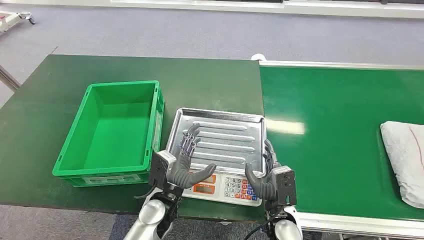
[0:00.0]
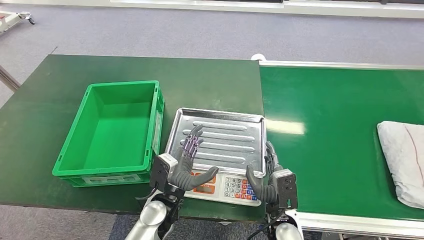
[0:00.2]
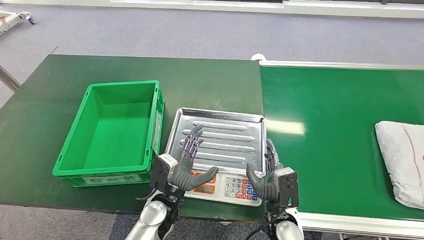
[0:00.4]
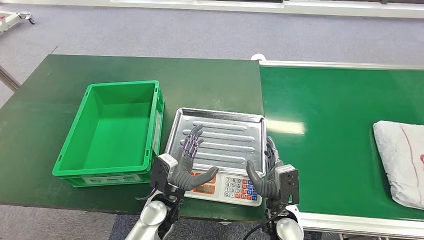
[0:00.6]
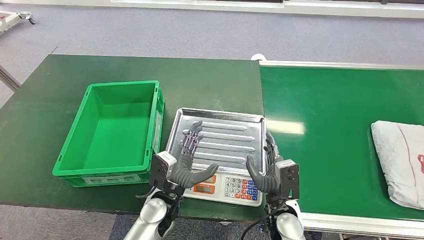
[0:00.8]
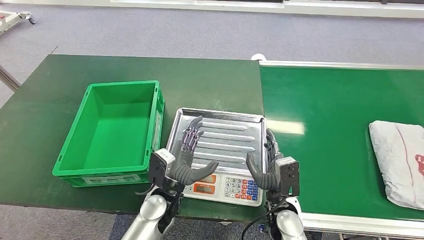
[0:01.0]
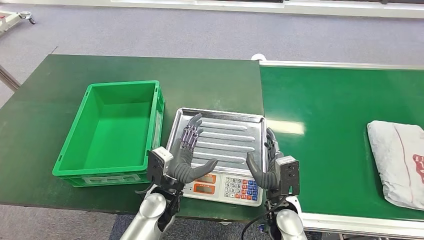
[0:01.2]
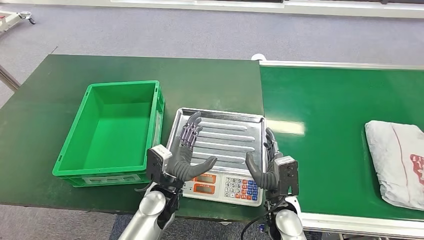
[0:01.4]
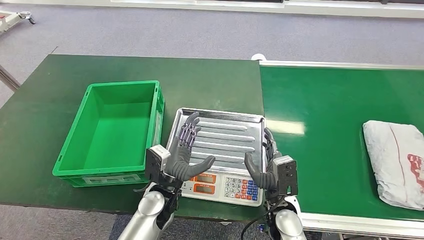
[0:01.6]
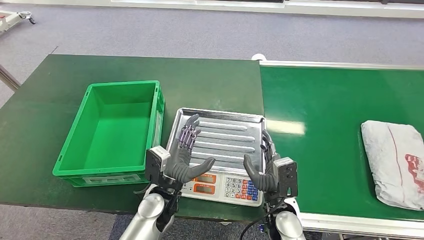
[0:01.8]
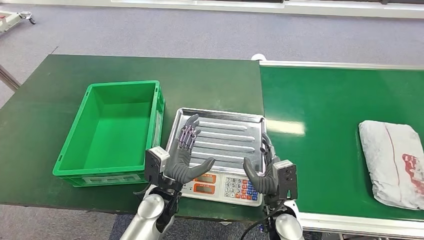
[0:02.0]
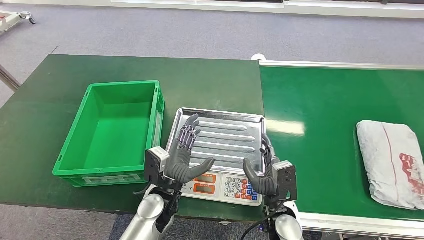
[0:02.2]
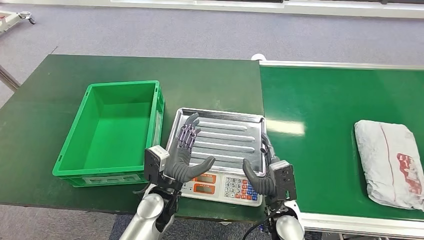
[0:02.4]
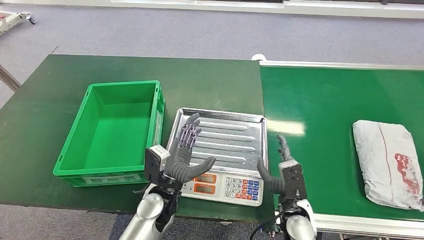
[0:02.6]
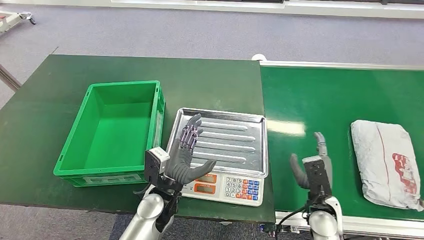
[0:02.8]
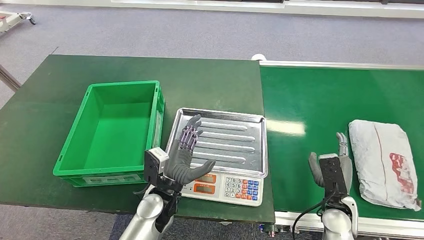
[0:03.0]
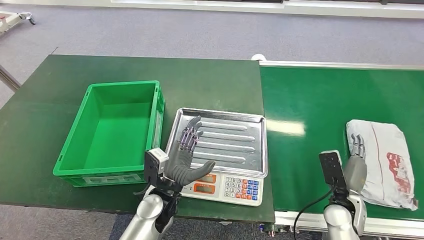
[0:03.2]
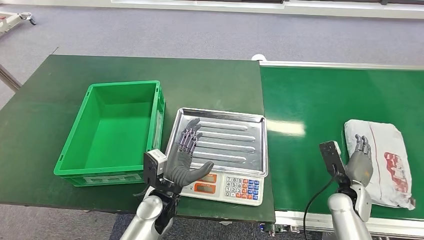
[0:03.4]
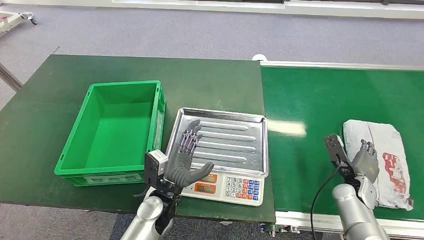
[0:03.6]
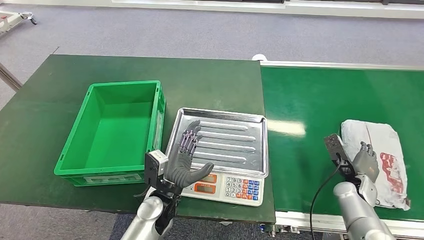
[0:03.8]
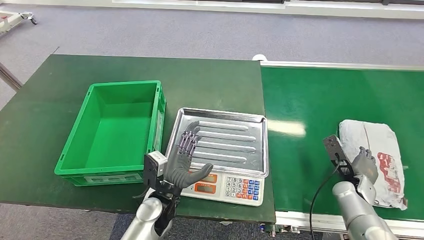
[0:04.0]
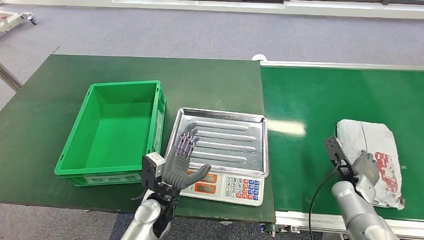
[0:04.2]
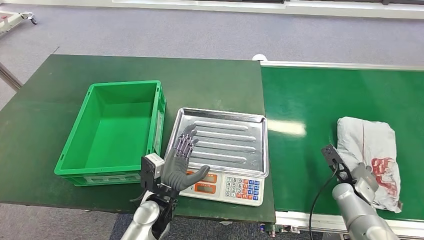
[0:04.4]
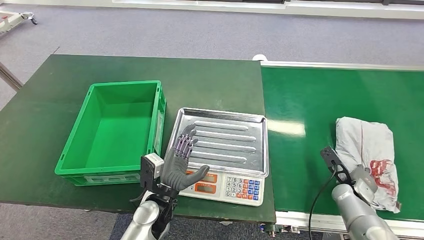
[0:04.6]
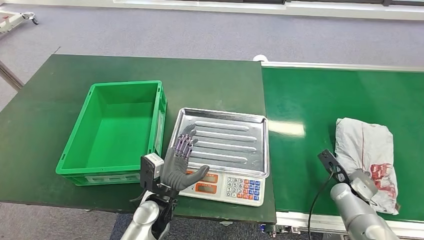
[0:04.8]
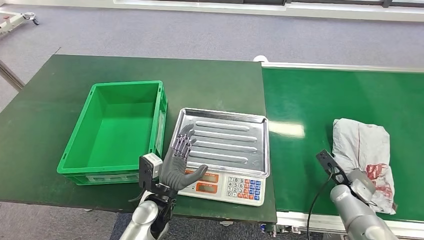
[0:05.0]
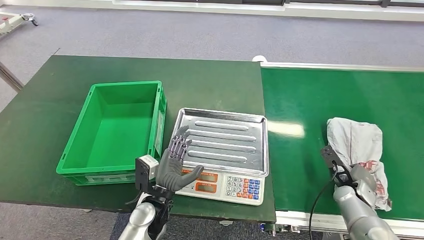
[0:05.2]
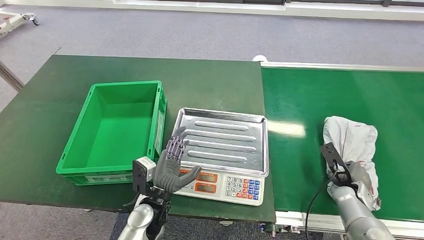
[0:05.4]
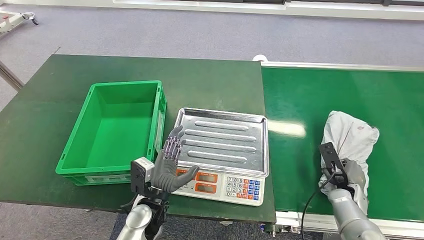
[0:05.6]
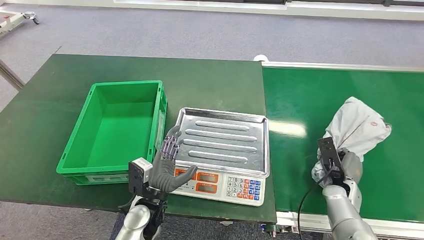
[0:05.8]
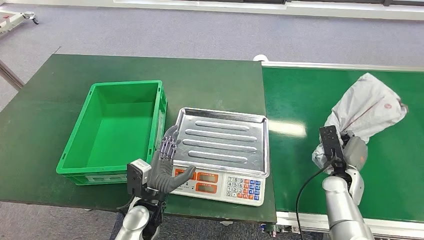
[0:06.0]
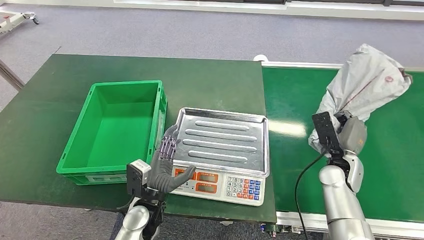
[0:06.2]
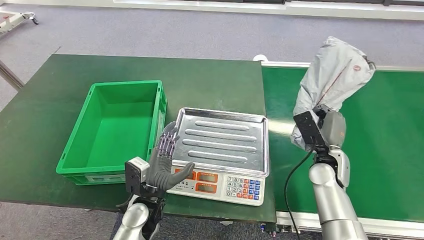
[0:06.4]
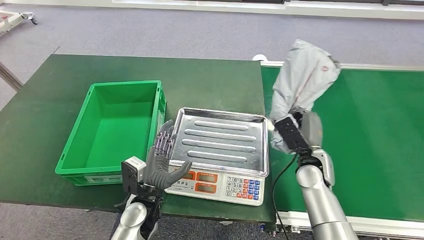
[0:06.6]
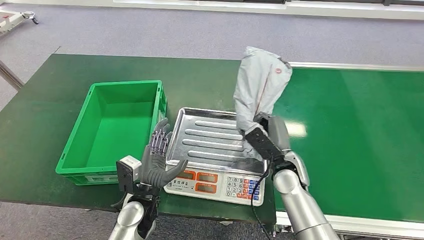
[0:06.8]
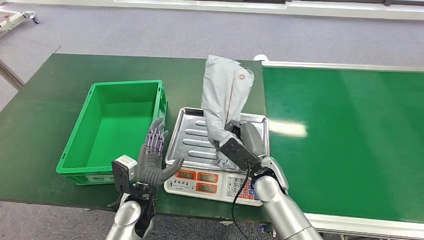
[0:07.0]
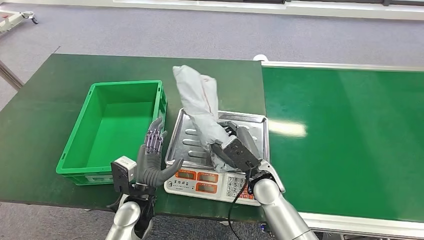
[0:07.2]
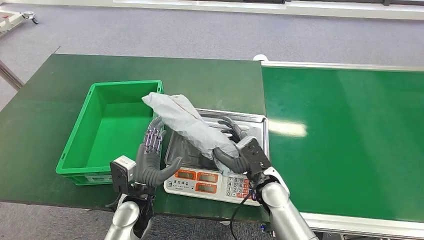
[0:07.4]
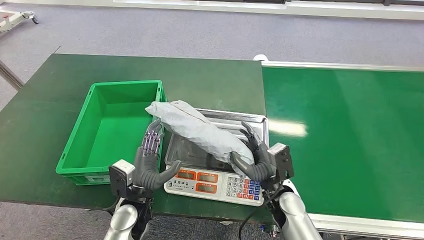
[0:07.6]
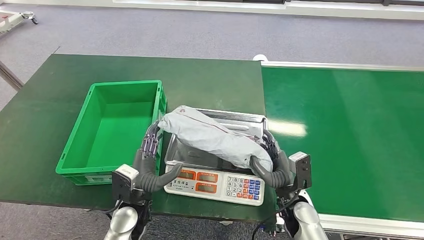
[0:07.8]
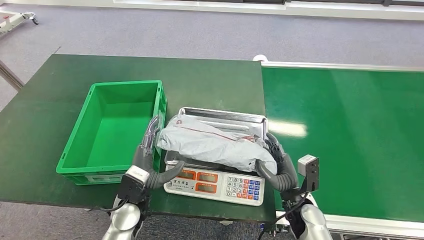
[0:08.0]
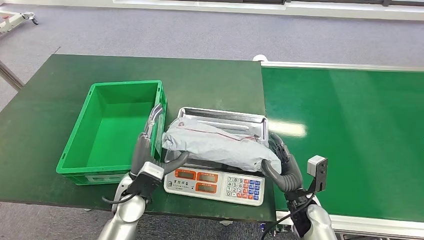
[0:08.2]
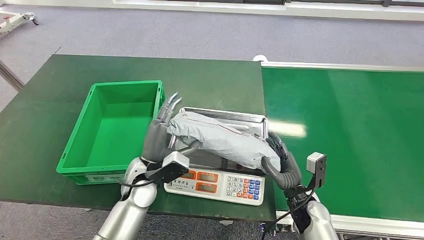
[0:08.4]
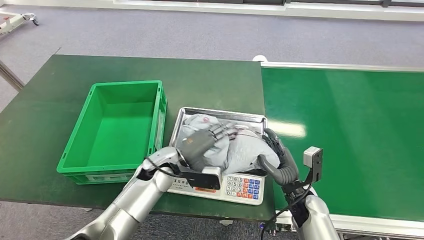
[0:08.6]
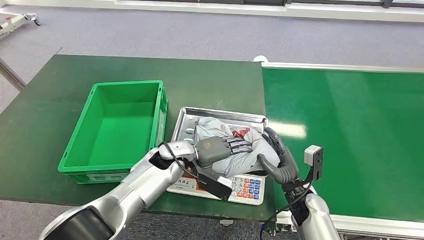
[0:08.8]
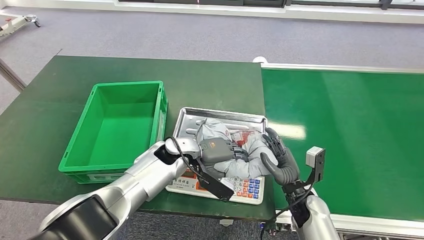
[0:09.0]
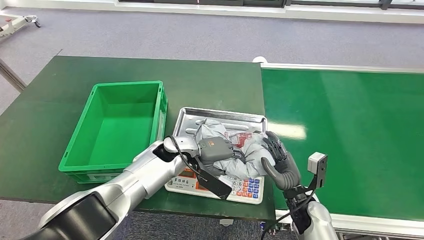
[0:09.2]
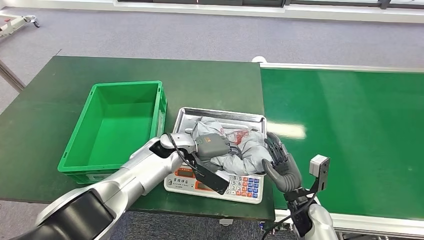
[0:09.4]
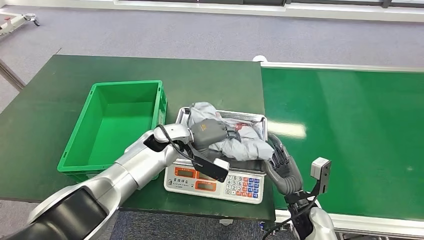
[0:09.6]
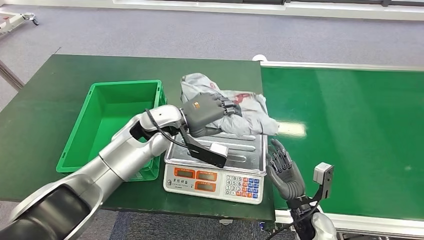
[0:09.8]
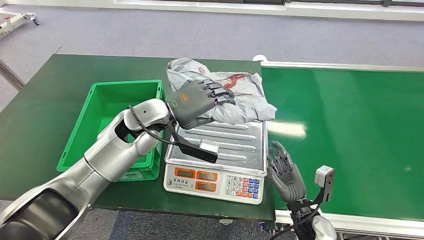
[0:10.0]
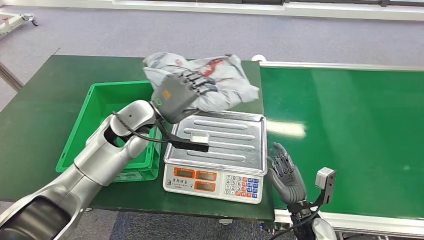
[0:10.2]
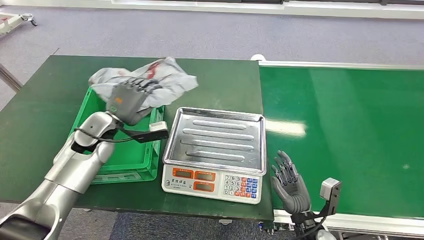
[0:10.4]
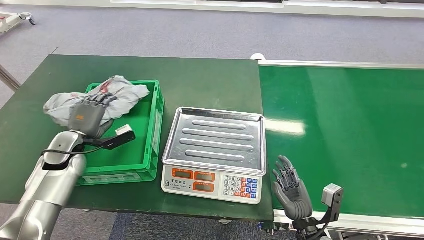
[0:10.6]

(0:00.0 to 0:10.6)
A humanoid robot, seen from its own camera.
Step, 0:00.0 - 0:06.4: Pick up the package from the conveyor belt.
Step, 0:06.6 - 0:08.2: Place the package onto the inbound machine.
Step, 0:08.4 - 0:10.4: Pick up the package from the inbound machine.
0:01.6 - 0:03.0: The right hand heads to the right, covering approximately 15 cm.
0:03.0 - 0:04.6: The right hand shifts approximately 10 cm to the right and forward.
0:04.6 - 0:06.0: The right hand changes place by roughly 5 cm.

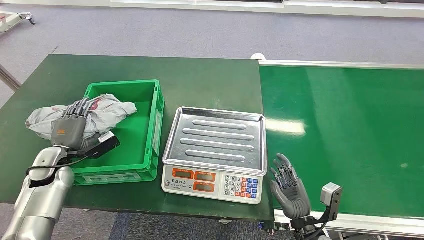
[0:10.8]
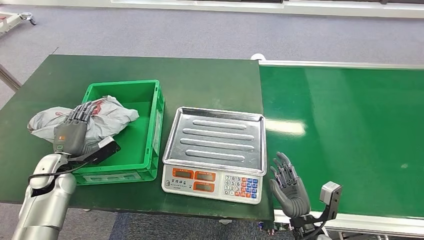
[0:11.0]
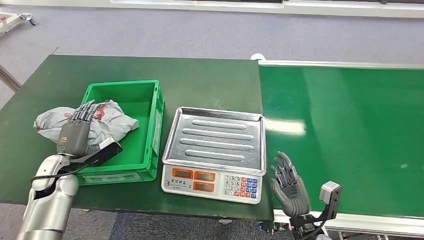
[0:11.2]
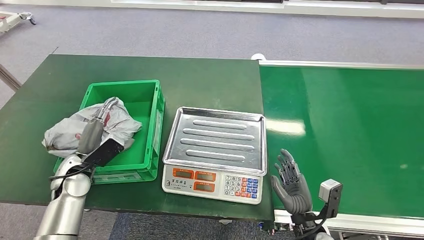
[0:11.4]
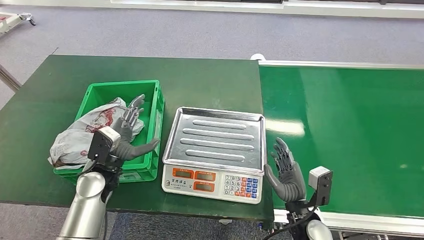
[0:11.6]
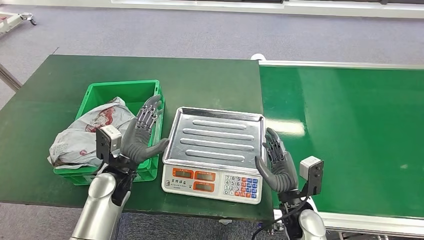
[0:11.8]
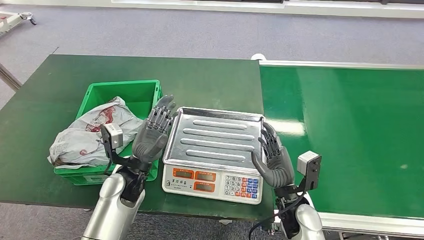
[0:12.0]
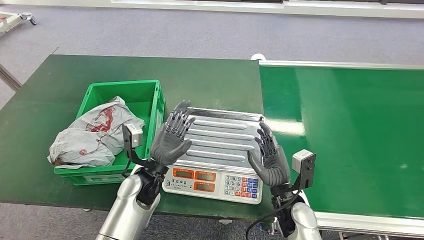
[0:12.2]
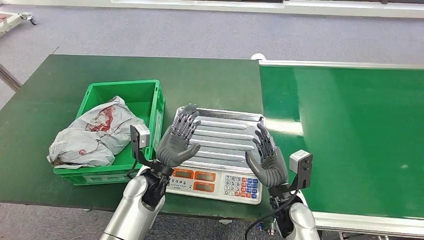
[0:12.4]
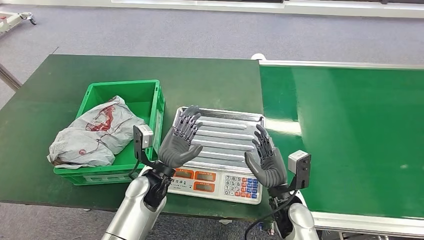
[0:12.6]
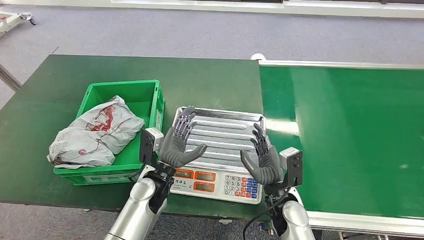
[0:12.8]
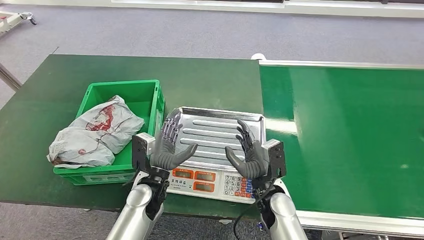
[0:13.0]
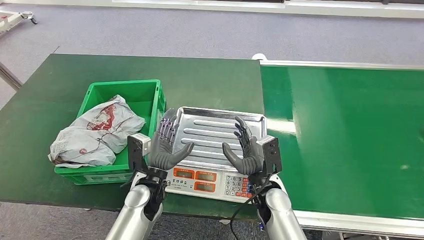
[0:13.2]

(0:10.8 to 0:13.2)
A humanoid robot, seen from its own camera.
Step, 0:10.8 - 0:13.2: Place the package into the parcel locker.
0:10.8 - 0:12.0: The left hand moves to the right, some 25 cm. Meanwhile the right hand heads upward, forward and to the left, covering approximately 10 cm.
0:12.0 - 0:13.2: The right hand goes about 5 cm to the left. Meanwhile the left hand ends up roughly 5 cm from where it was.
